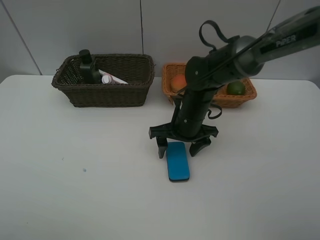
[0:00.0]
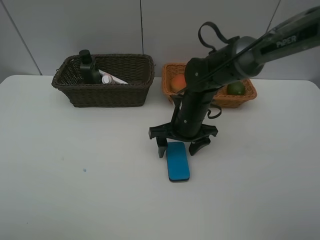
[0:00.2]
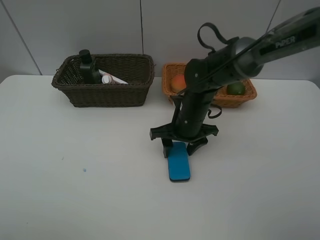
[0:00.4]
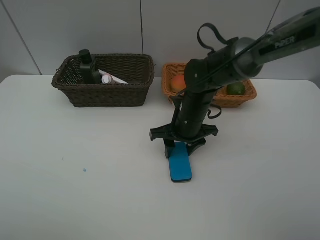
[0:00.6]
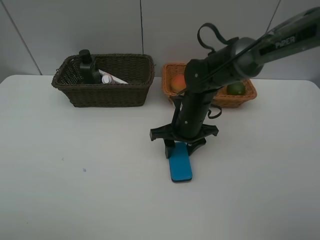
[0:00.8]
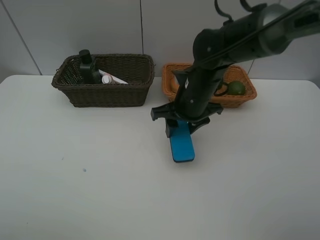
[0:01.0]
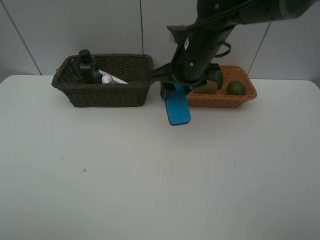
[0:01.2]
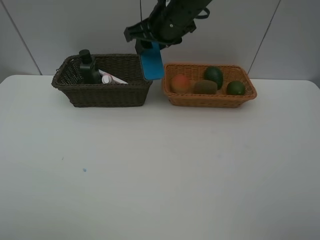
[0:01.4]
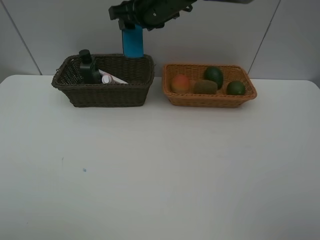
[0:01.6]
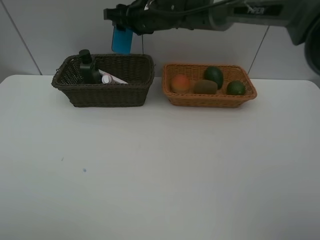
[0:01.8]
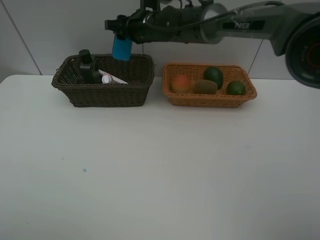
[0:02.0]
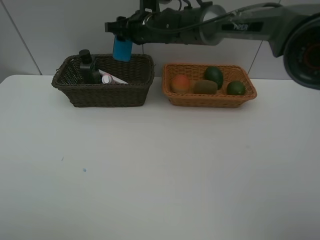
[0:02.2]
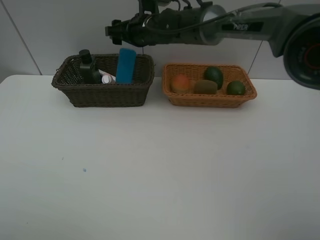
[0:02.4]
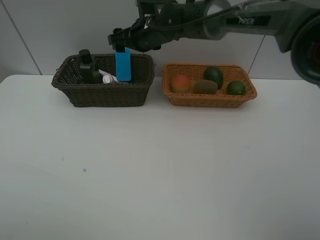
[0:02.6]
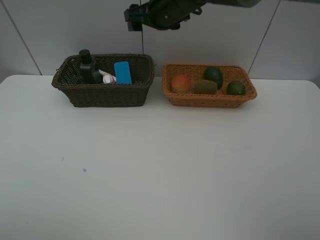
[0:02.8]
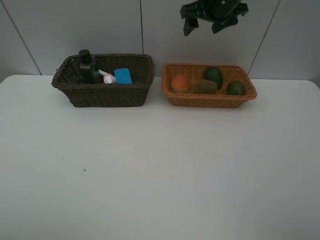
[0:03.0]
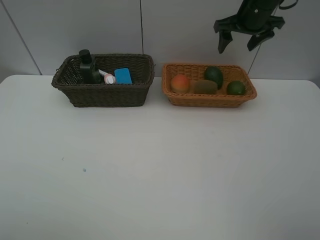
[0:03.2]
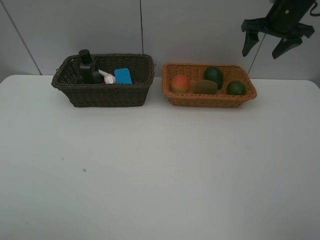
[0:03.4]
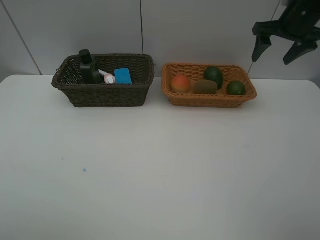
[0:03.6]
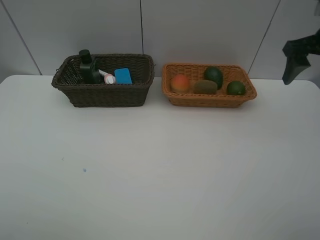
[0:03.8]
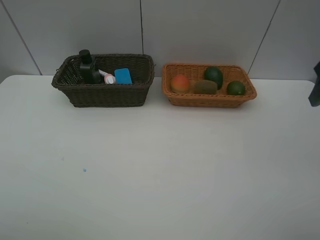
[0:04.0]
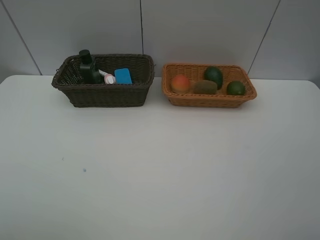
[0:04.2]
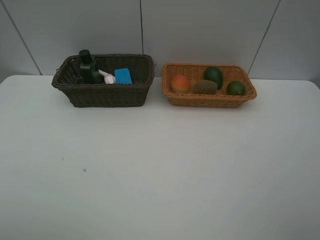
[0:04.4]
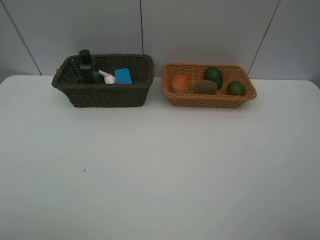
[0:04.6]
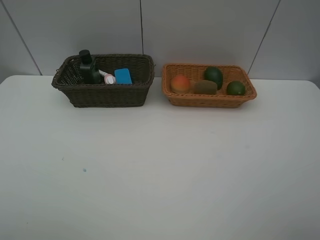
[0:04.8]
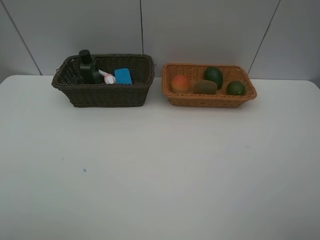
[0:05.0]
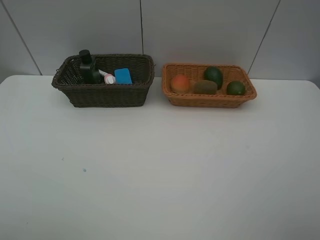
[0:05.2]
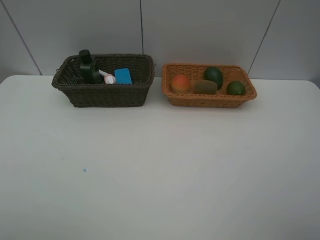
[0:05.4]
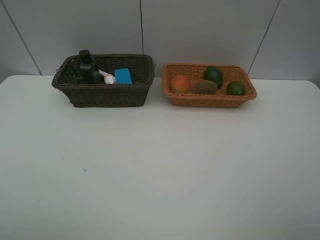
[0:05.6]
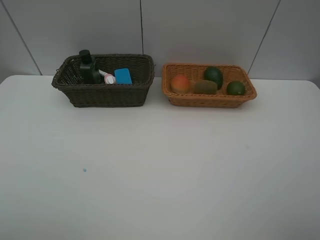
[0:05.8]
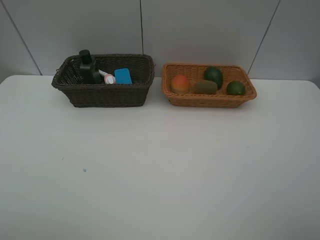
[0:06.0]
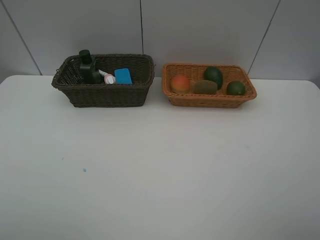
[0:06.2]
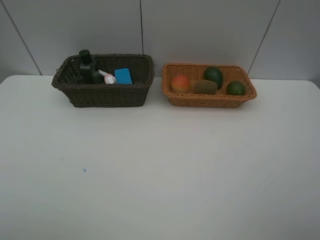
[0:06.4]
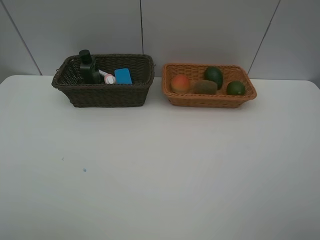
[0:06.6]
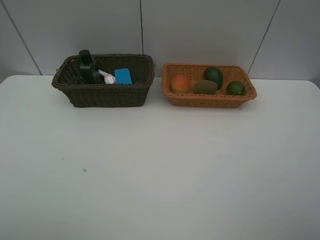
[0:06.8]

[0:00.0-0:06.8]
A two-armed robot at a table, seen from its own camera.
Task of the whole recording: Place multiple objects separately in different baskets.
Step, 0:01.0 to 0:02.6: Place the blackboard eraser in the dark basket with right gripper.
0:00.0 to 0:01.4: The right gripper heads upward and forward, covering about 20 cm, and closes its fingers.
0:01.4 to 0:02.8: The right gripper shifts about 5 cm forward, and opens its fingers.
0:02.8 to 0:04.0: The right gripper heads to the right and backward, covering some 35 cm.
0:05.4 to 0:06.8: The two grippers keep their place.

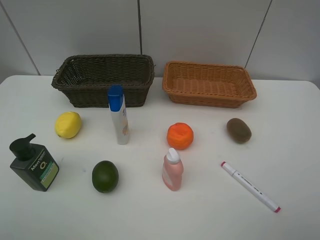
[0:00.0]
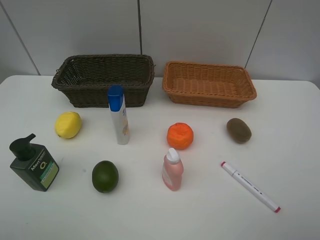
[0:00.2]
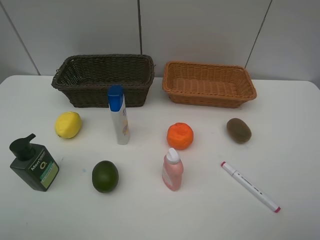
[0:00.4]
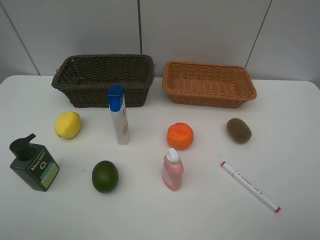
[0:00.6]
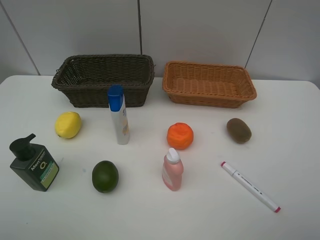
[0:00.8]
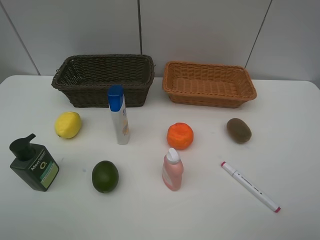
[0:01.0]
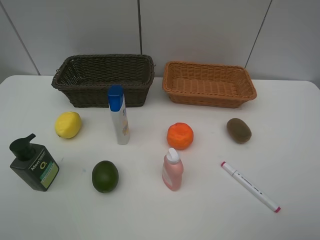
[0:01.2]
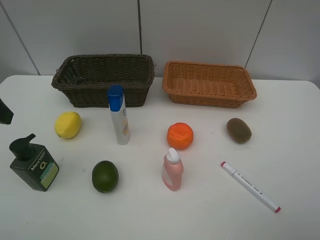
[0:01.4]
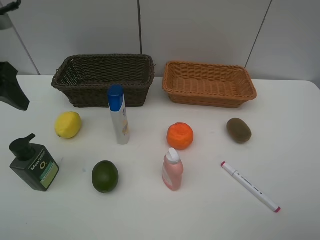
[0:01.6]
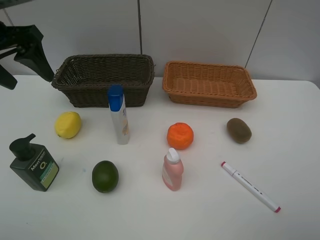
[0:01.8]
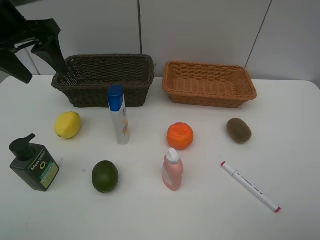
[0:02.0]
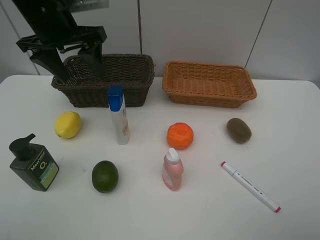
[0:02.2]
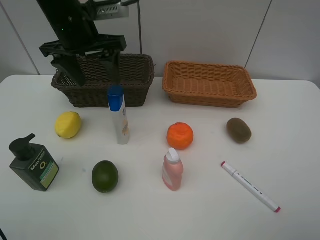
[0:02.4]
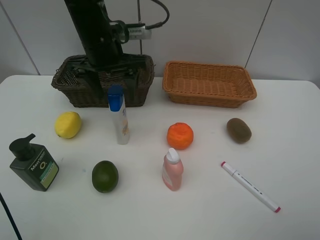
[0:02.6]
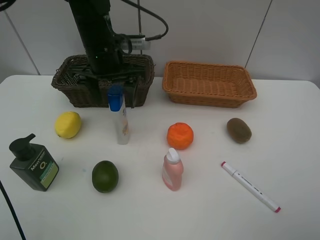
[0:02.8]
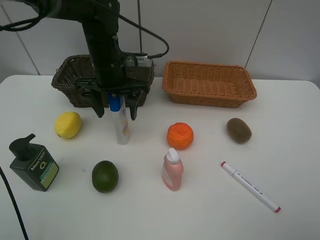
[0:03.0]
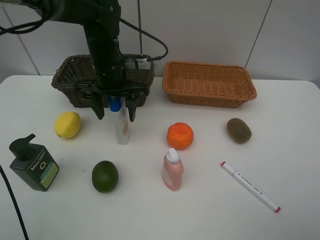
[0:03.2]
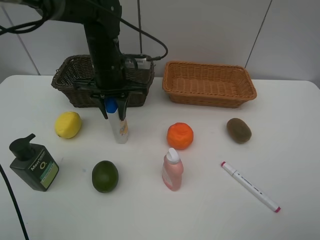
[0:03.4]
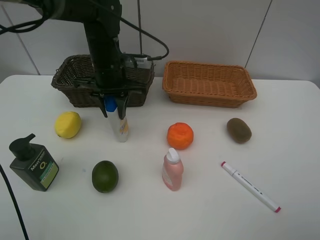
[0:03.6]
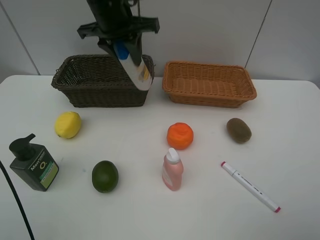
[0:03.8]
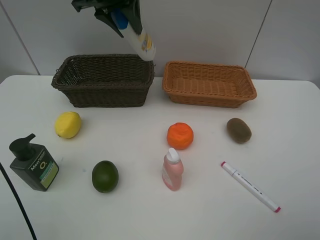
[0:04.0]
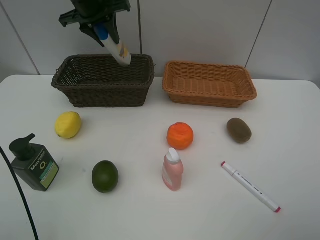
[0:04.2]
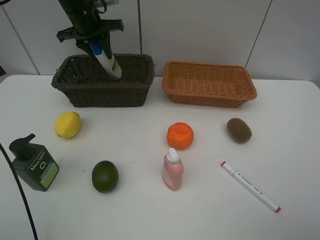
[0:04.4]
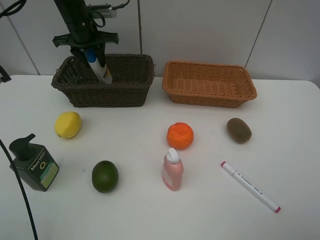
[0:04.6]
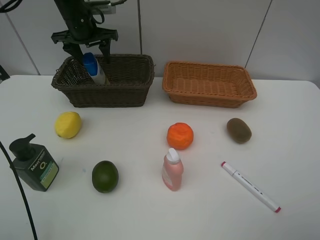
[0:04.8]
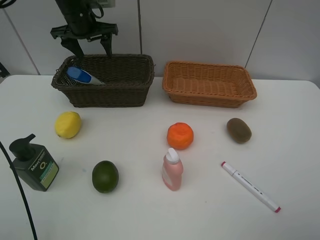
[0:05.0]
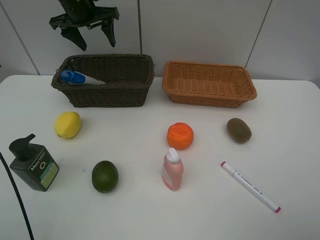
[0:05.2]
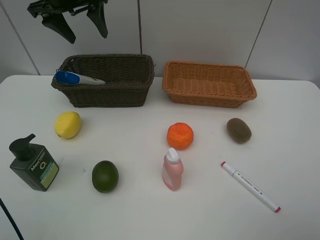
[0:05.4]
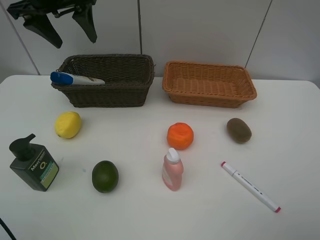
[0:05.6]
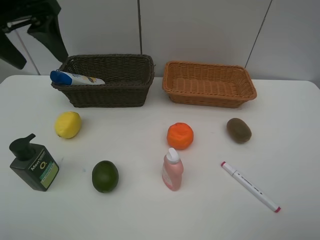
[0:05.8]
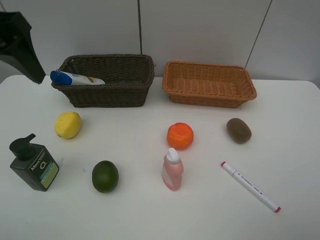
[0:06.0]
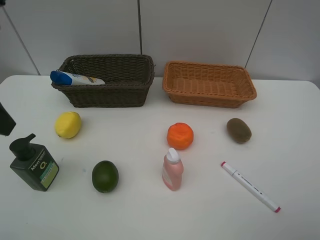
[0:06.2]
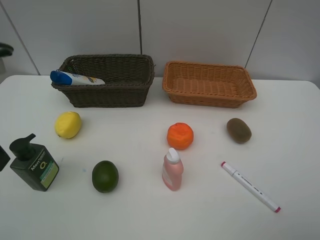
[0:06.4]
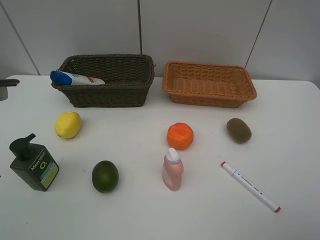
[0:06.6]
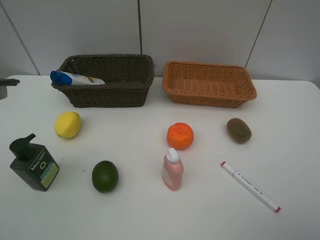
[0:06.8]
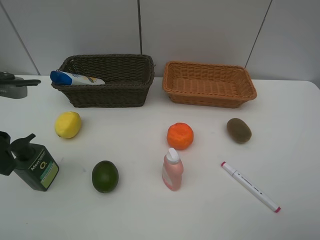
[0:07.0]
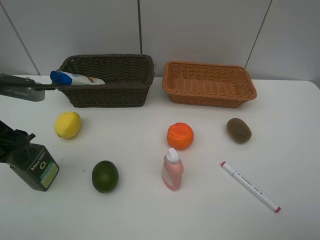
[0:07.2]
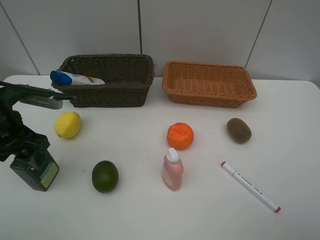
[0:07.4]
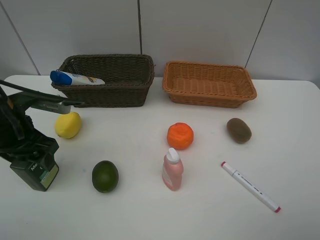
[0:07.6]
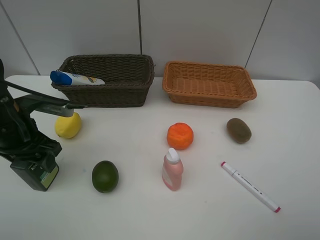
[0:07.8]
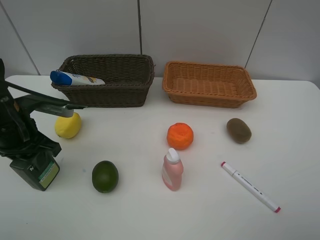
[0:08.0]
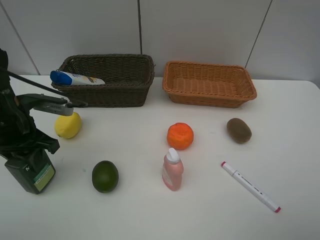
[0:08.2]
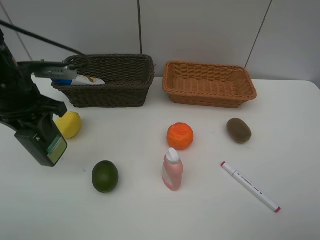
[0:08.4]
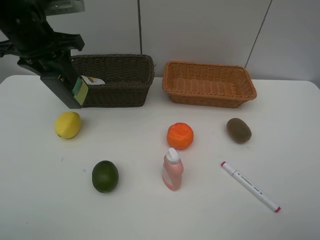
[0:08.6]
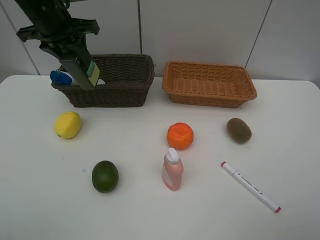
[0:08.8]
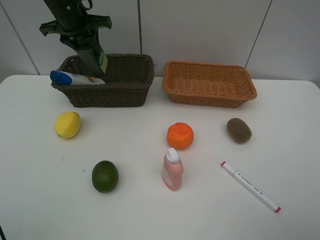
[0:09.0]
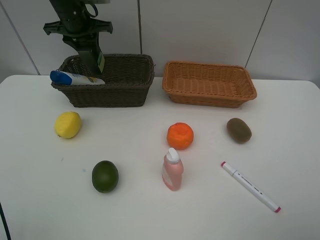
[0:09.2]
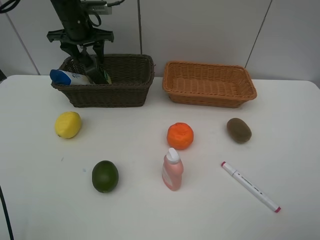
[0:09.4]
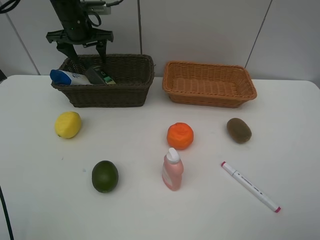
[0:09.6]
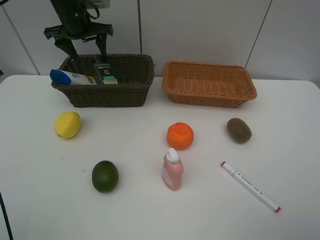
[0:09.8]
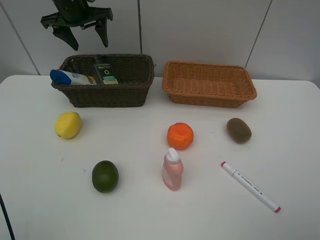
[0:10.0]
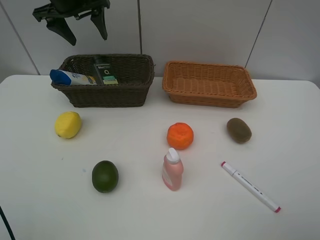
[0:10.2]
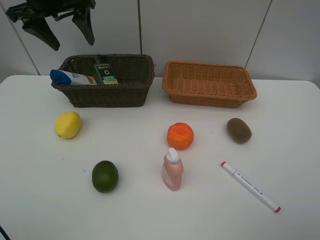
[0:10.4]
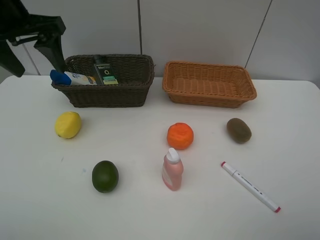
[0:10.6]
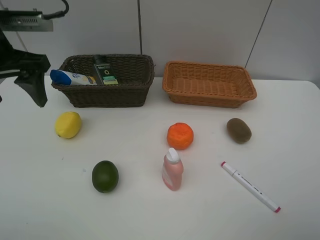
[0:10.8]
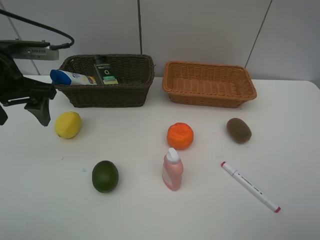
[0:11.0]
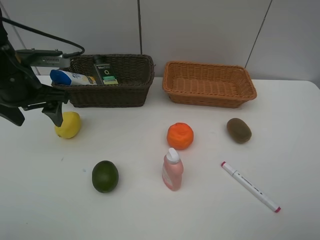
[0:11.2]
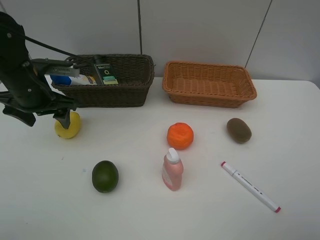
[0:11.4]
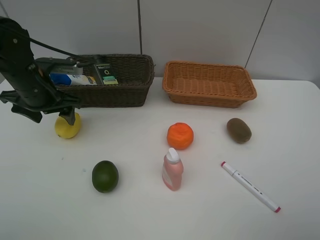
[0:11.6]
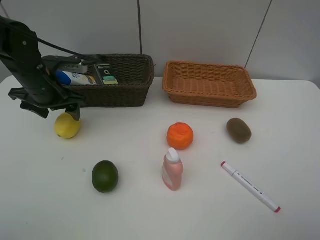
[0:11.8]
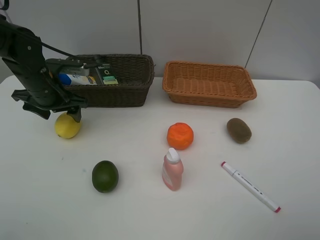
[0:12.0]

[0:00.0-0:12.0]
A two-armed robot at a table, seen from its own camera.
Task of the whole recording: Place multiple objects separately in different baskets.
Step, 0:00.0 to 0:03.6: Pick up the shampoo with left gripper.
Step, 0:03.8 to 0:05.0: Place the shampoo in the dark basket with left gripper.
Step, 0:05.2 to 0:08.2: Pick up the hard facial cleanser with left gripper.
Step, 0:08.4 to 0:09.6: Place the hard facial cleanser in the dark basket with left gripper.
0:00.0 to 0:01.6: The left gripper is displaced forward by approximately 25 cm.
0:01.6 to 0:03.0: The left gripper moves to the right, forward and downward, approximately 25 cm.
0:03.0 to 0:04.4: The left gripper is displaced forward and to the left by approximately 15 cm, goes upward and returns, about 15 cm each way, and closes up.
0:04.4 to 0:06.0: The left gripper is displaced backward by approximately 25 cm, and opens its fingers.
0:06.0 to 0:07.6: The left gripper shifts roughly 20 cm downward.
0:07.6 to 0:09.0: The left gripper goes about 25 cm forward and upward, and closes up.
0:09.0 to 0:10.4: The left gripper is displaced backward and upward by some 10 cm, and opens up.
0:10.4 to 0:12.0: The left gripper heads downward, covering about 20 cm.

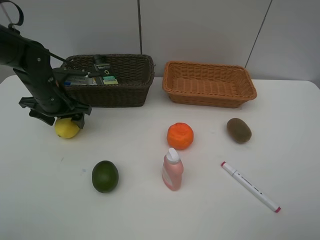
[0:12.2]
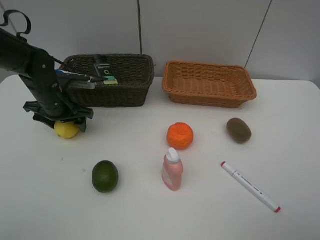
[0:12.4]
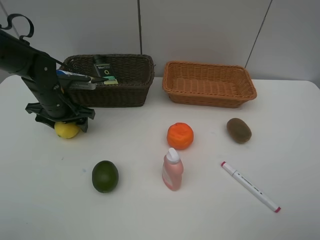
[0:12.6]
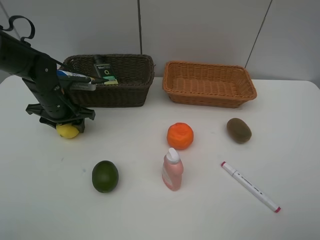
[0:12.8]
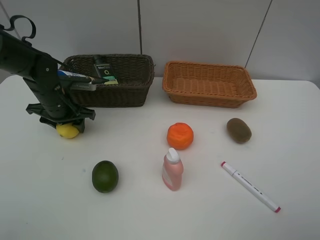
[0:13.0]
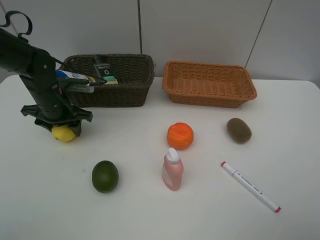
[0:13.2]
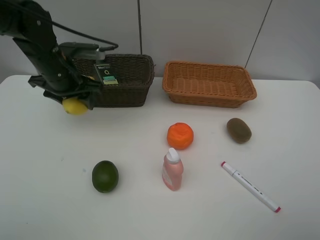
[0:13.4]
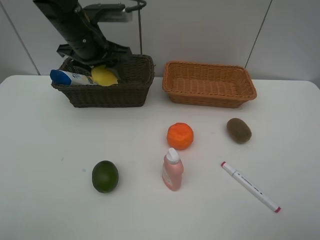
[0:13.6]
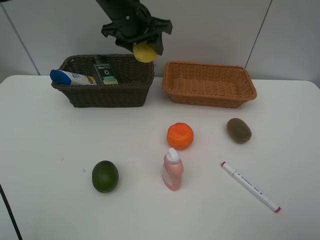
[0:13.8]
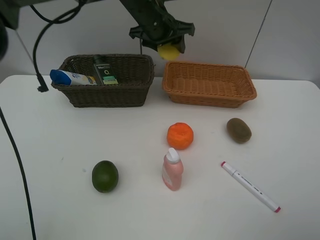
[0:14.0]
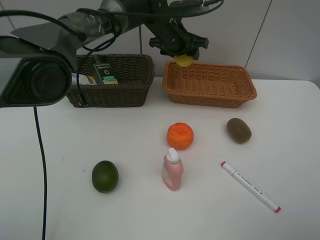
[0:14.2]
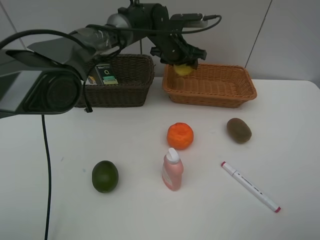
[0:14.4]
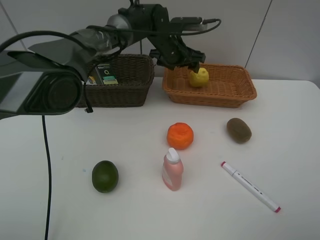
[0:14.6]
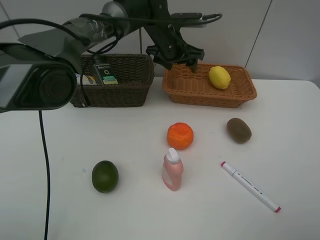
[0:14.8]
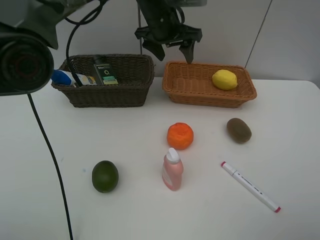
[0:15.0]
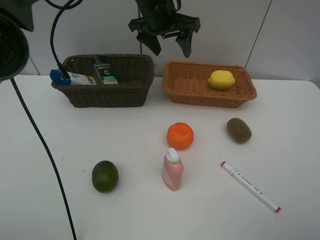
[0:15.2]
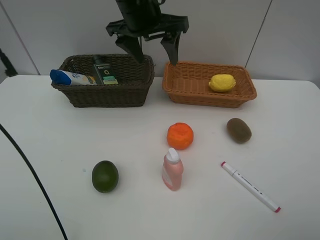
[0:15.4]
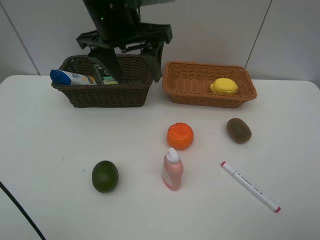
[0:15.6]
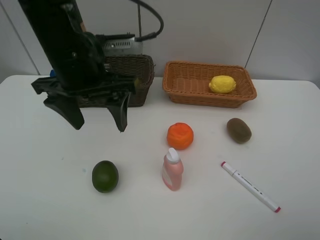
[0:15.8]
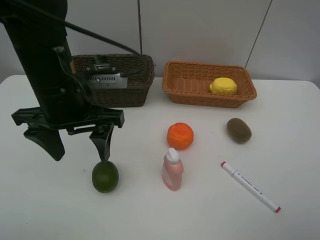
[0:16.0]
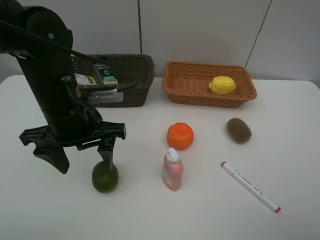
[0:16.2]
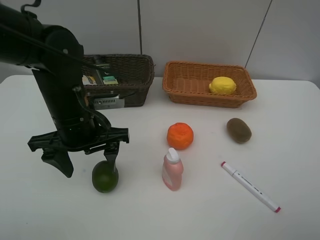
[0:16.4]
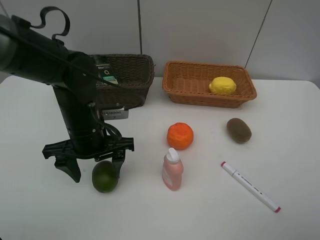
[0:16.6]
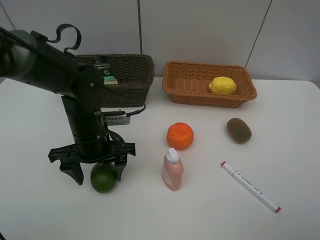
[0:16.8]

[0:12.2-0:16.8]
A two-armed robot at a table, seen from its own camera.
Task of the whole recording: Place multiple objects separately in different baskets.
Step, 0:13.4 to 0:14.6: Place the lemon in the light basket with left gripper.
0:12.2 to 0:13.8: The left gripper heads to the right, upward and forward, covering about 25 cm, and closes up.
0:13.8 to 0:15.2: The left gripper moves roughly 10 cm downward and comes back, and opens its fingers.
0:15.2 to 0:16.8: The left gripper shifts approximately 25 cm downward, backward and to the left.
